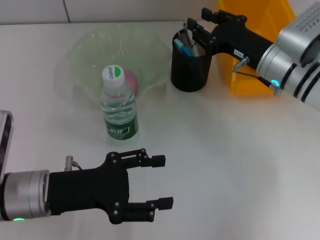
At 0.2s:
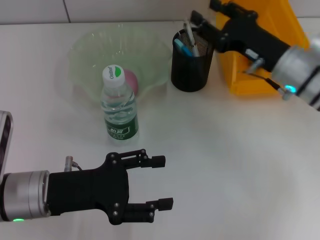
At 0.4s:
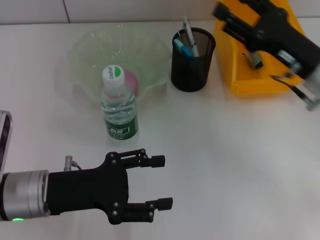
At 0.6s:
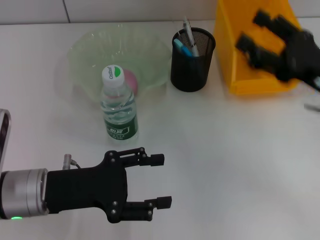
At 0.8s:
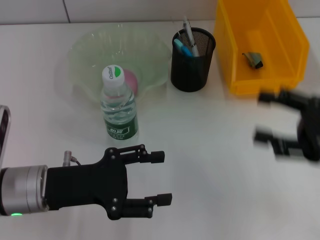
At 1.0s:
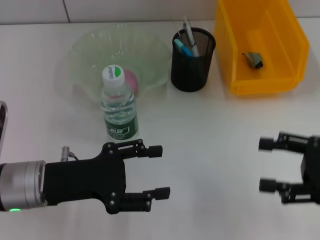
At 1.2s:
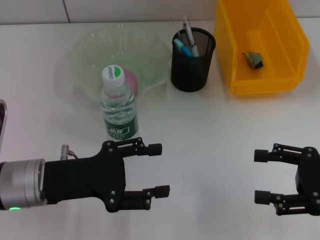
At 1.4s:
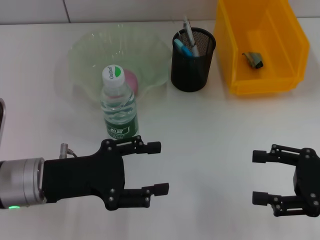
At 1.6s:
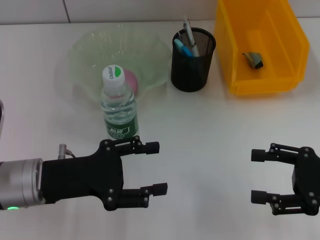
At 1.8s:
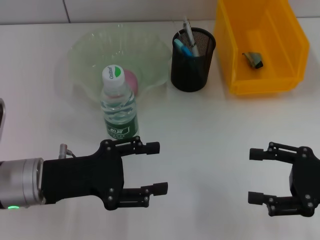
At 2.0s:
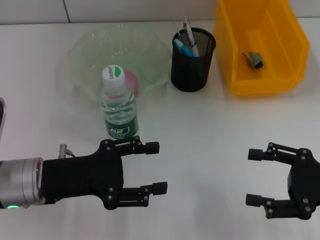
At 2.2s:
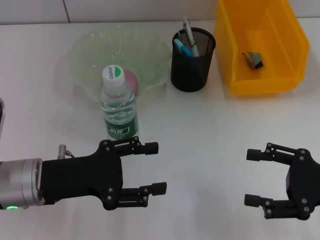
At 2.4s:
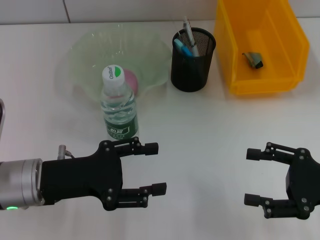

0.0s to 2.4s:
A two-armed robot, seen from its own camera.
0.0s to 1.2s: The right gripper moves backward and to the right, approximately 20 cm, and opens up.
1.2s to 2.4s: The grippers make only small movements.

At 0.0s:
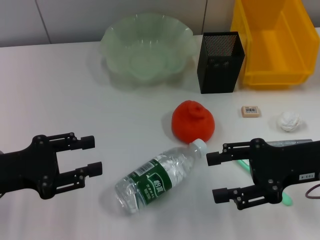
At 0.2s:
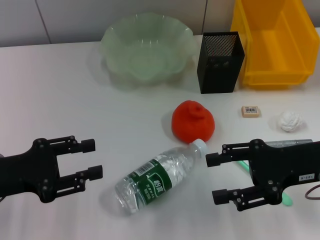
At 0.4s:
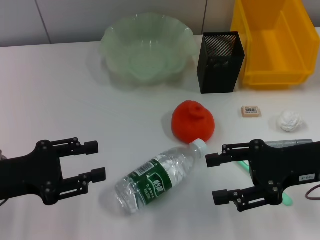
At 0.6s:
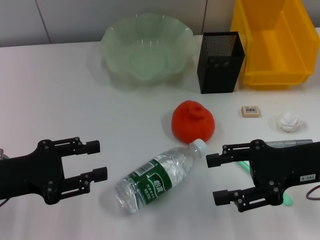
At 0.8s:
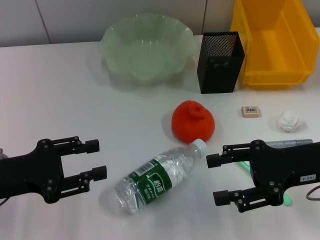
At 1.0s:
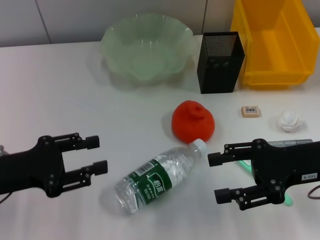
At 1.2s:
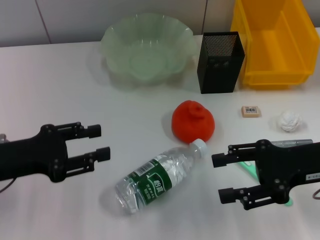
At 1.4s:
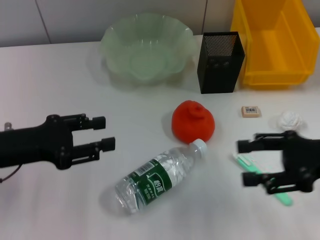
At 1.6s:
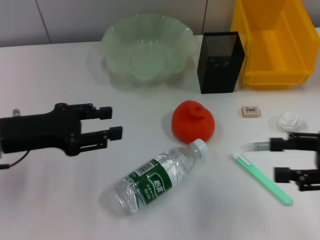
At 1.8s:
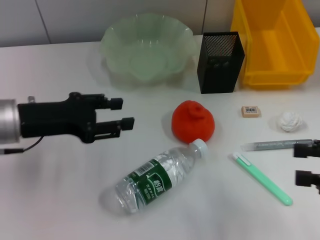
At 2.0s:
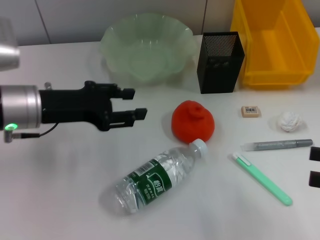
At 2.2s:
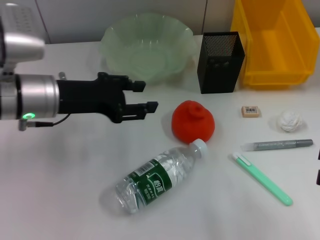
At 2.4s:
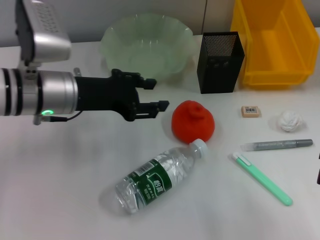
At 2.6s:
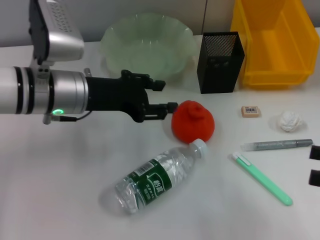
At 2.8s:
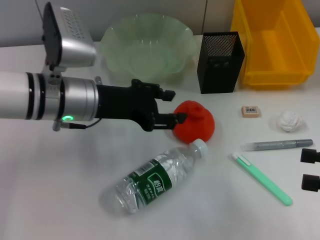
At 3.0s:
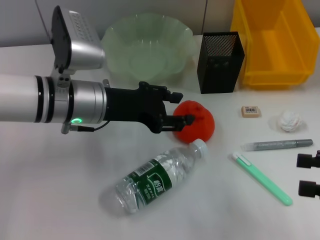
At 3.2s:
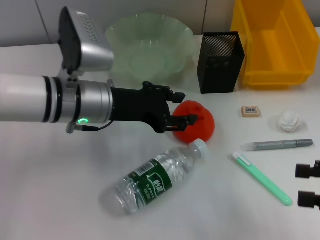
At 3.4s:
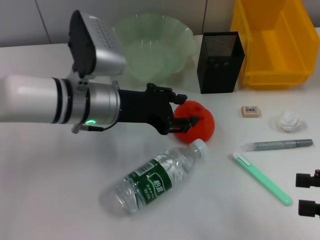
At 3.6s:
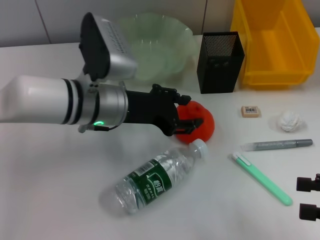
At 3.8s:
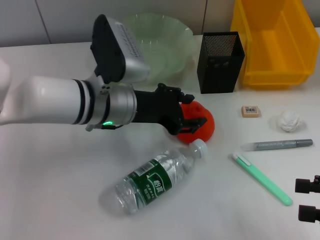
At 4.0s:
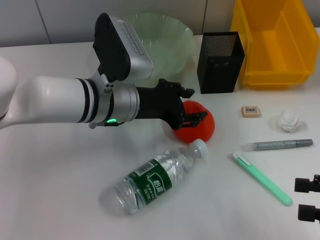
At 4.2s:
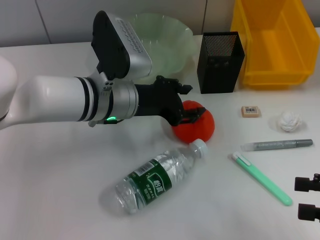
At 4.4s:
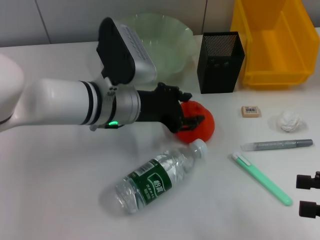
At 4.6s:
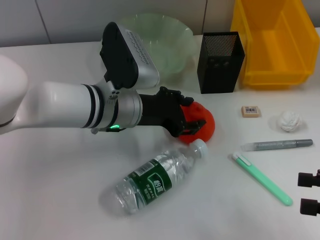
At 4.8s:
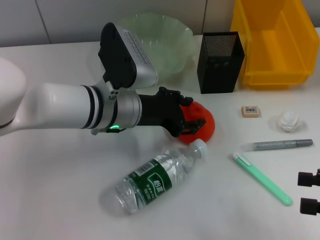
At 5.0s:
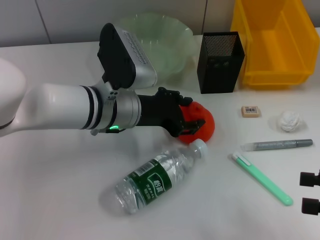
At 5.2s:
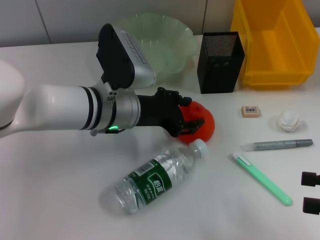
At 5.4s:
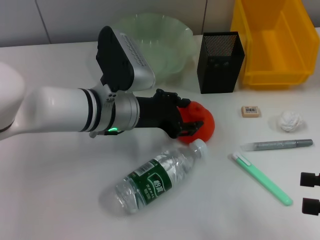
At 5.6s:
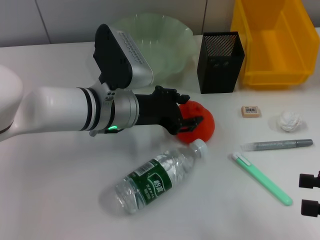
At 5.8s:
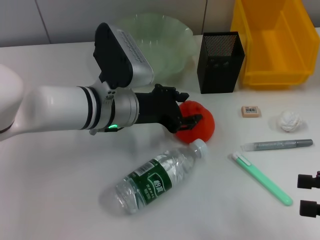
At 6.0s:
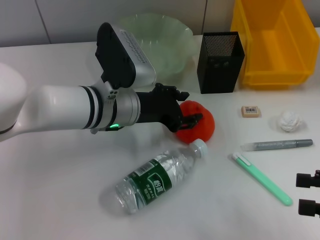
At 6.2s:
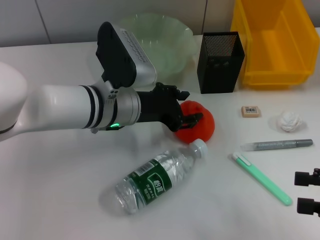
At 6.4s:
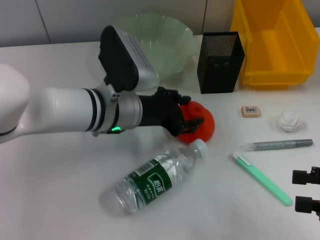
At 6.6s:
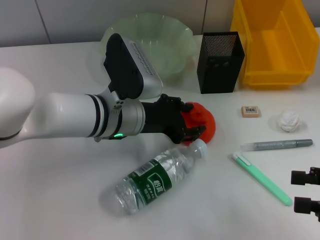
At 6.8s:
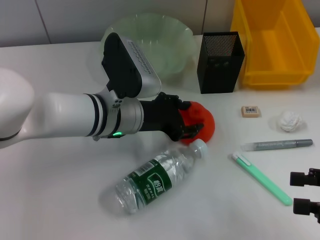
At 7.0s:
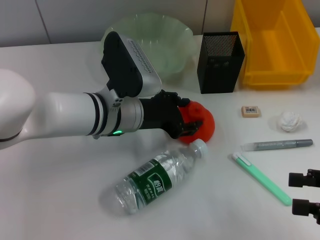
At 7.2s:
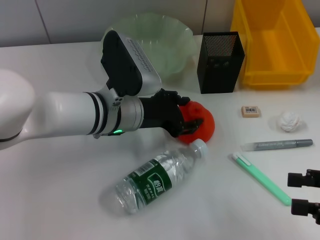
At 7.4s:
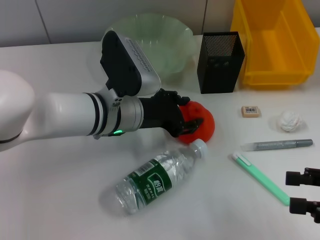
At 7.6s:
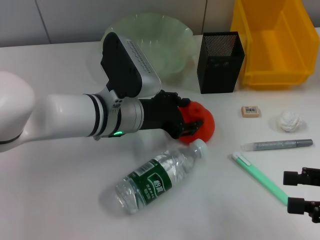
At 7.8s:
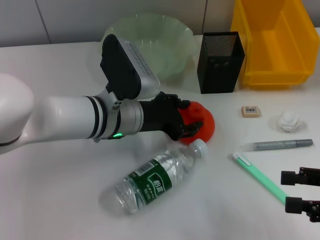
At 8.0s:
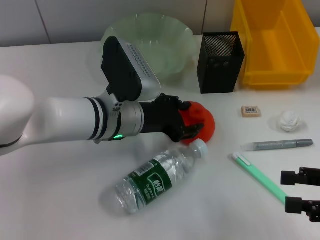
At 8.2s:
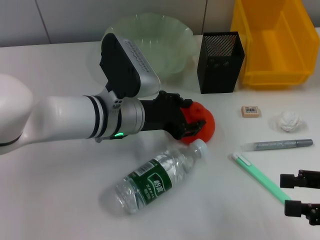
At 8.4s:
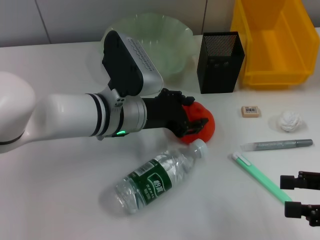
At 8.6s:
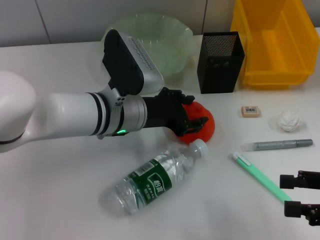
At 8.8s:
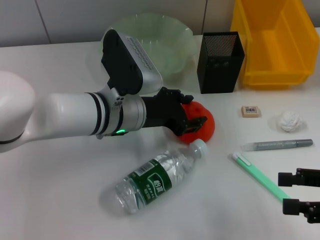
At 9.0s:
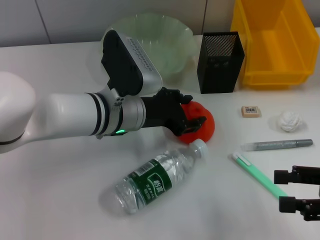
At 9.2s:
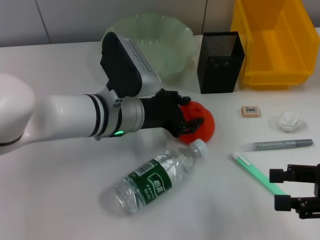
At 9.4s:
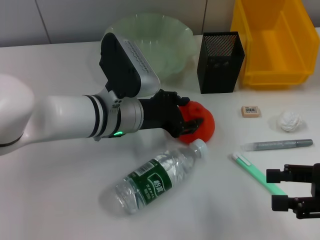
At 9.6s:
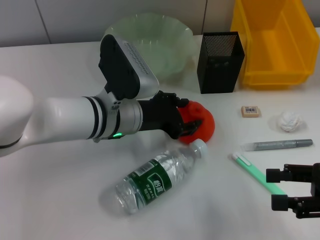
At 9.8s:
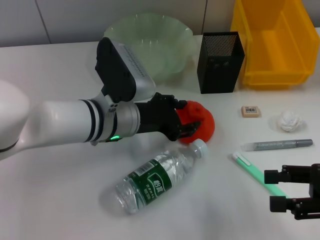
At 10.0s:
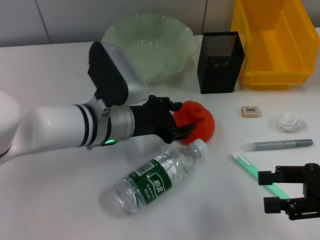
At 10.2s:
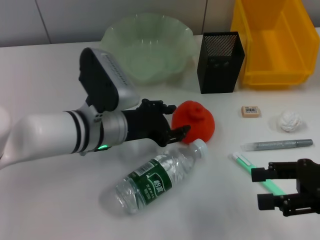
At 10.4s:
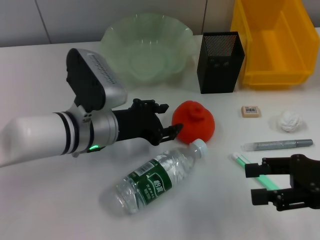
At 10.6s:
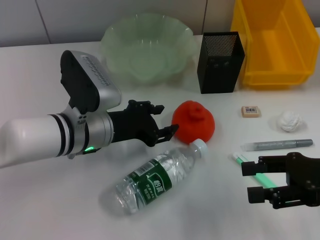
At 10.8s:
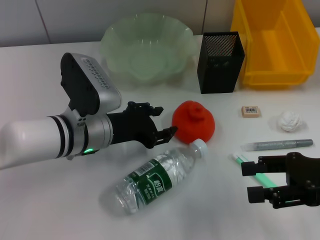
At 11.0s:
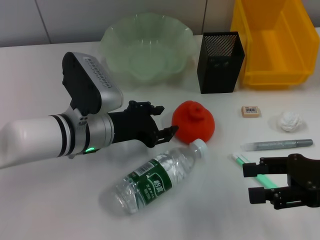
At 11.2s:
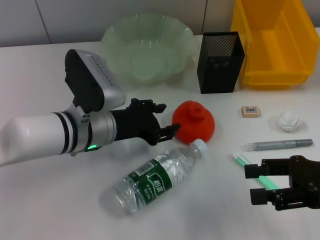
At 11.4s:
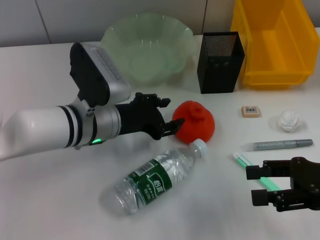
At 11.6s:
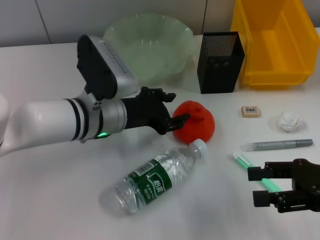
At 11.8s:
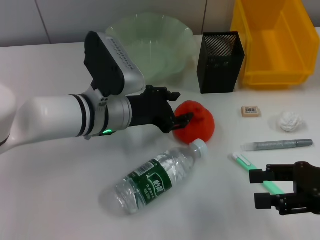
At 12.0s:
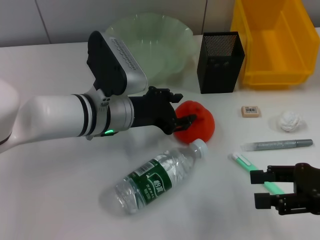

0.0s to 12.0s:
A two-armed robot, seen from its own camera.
0.0s to 1.6s: The right gripper goes about 10 cm to the right. Meanwhile the left gripper shifts by some 5 cm.
1.6s to 3.0s: The left gripper moves to the right, approximately 10 cm.
3.0s to 4.4s: The left gripper moves approximately 5 cm.
4.4s to 6.0s: Both grippers stay about where they are.
6.0s to 7.6s: The grippers make only small movements.
7.6s to 9.0s: Both grippers stay put.
10.4s to 12.0s: The grippers move only a little.

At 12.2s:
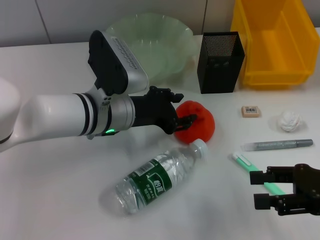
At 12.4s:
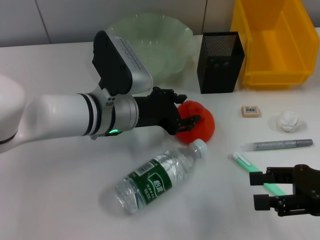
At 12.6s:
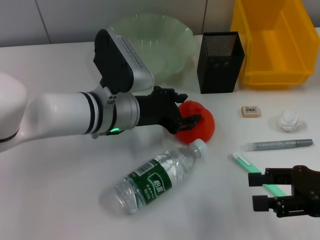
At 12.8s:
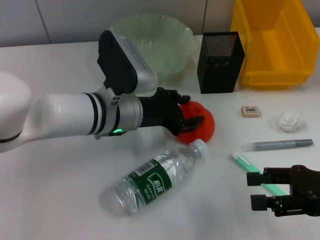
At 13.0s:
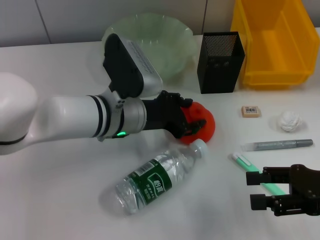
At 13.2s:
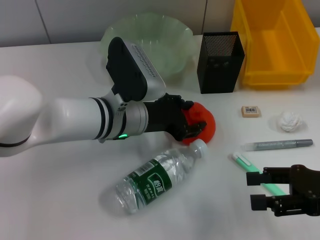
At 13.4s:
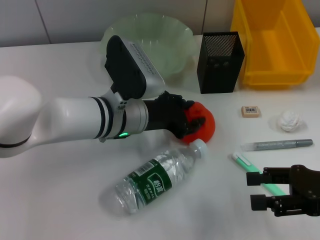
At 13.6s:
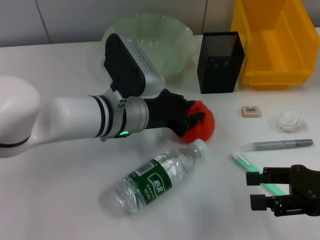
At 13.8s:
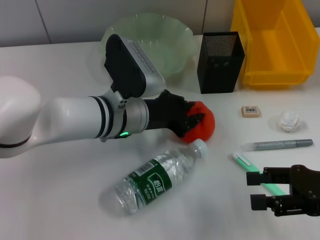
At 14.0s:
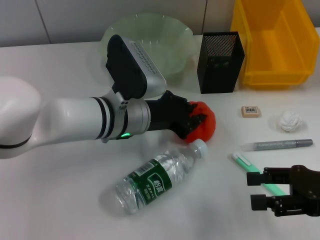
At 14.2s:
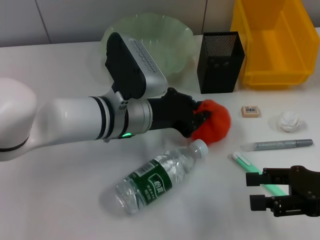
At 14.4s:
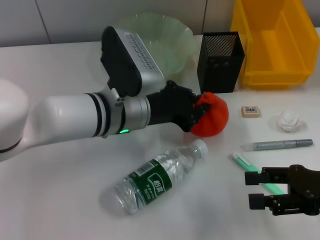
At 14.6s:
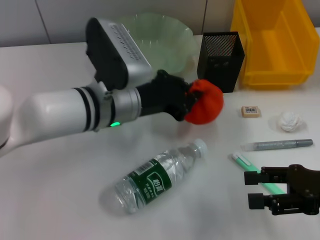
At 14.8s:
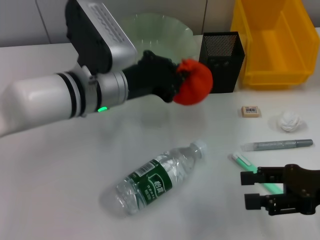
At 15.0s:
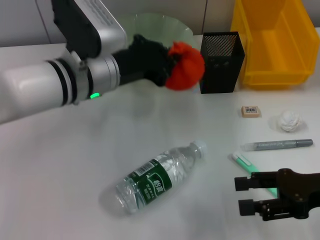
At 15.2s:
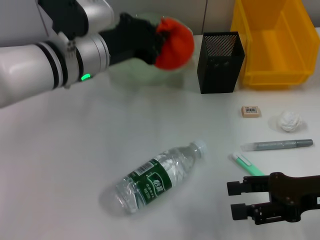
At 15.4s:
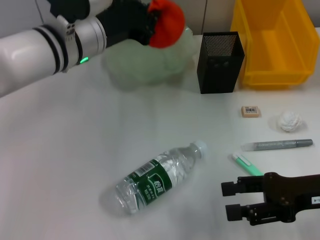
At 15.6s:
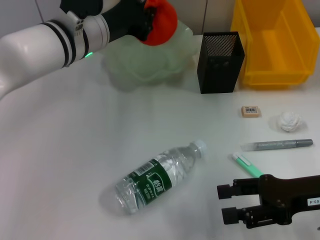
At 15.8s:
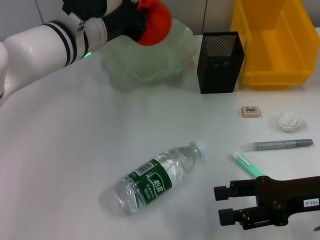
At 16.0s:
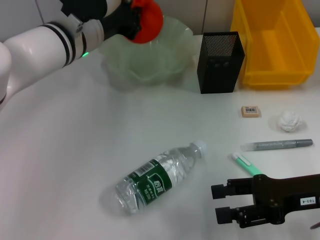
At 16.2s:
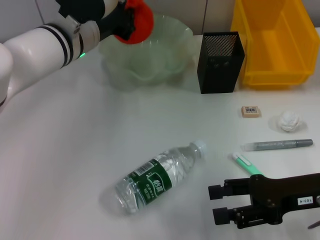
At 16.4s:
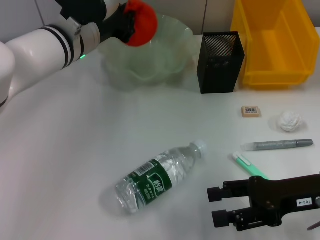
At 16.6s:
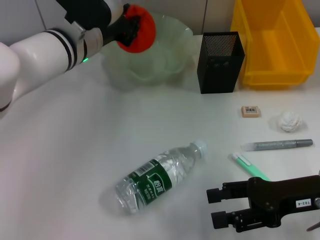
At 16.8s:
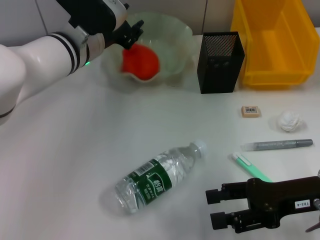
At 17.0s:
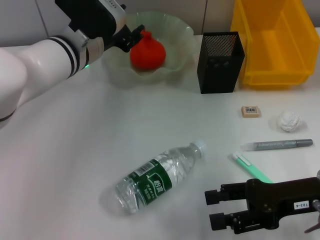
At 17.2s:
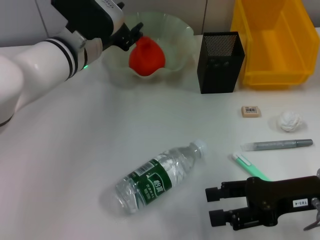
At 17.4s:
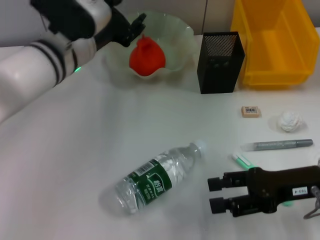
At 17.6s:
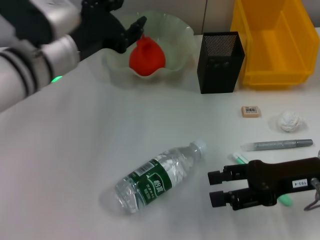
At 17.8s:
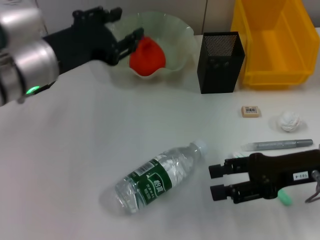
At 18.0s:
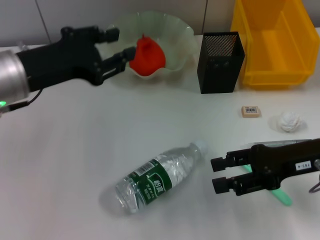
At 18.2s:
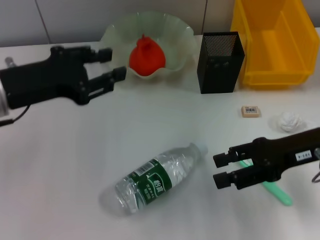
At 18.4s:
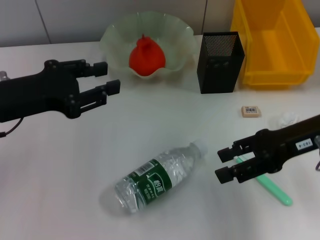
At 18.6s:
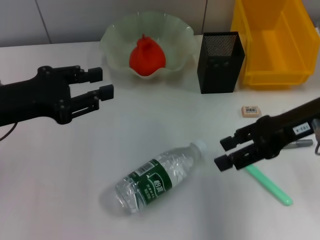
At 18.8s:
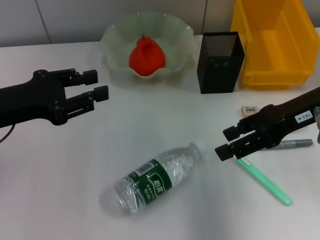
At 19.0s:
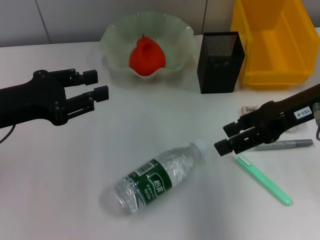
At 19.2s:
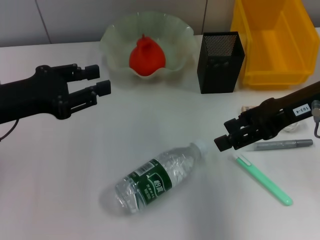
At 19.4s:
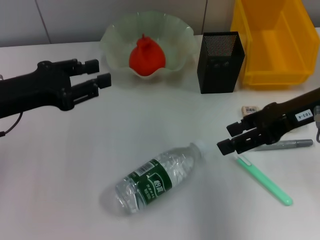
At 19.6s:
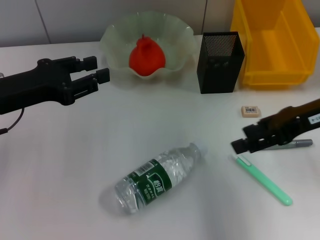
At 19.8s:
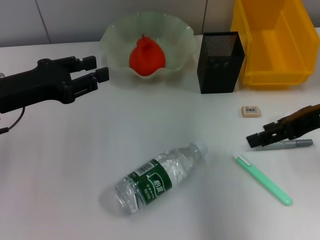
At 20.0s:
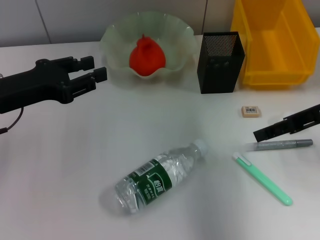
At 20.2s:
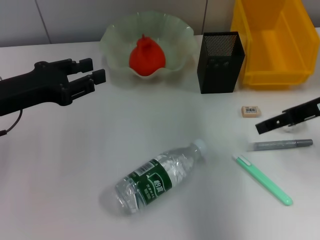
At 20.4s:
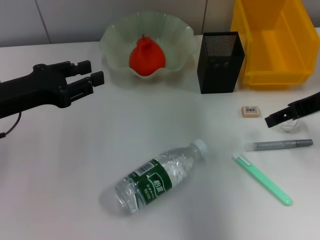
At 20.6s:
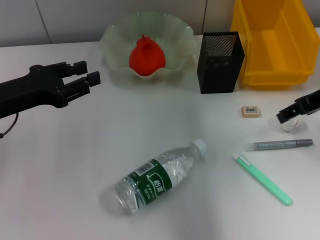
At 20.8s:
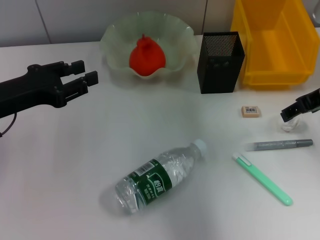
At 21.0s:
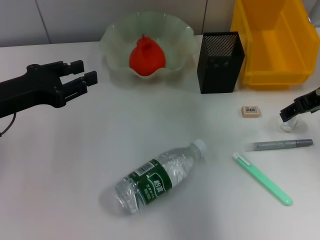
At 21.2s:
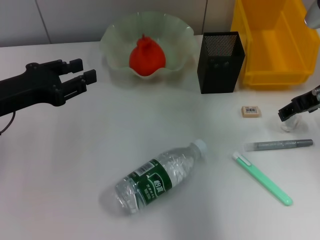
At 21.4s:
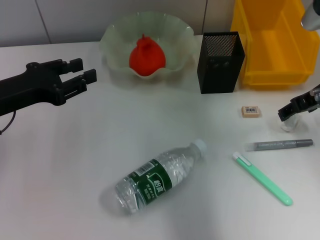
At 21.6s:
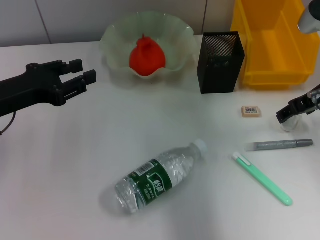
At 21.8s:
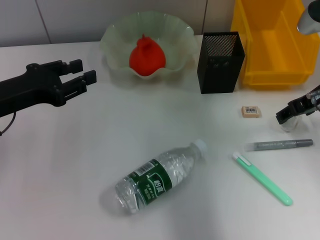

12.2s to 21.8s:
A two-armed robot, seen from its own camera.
Step, 14.0s to 17.0s: Place the orange into the fruit bowl with the left hand.
12.2s to 13.8s: The grippers stay close to where they were, moving slightly.
13.8s to 15.4s: The left gripper travels upward by approximately 10 cm.
15.4s to 17.0s: The left gripper opens.
17.0s to 18.6s: The left gripper is displaced to the left and backward by approximately 20 cm, while the right gripper travels upward and forward by about 15 cm.
20.2s to 21.8s: The right gripper ends up approximately 5 cm from where it was.
